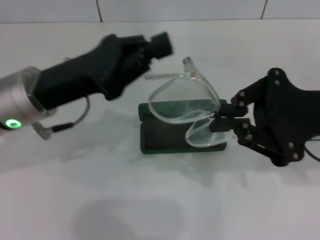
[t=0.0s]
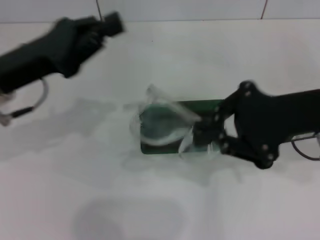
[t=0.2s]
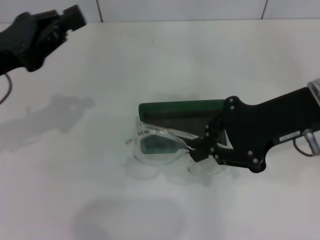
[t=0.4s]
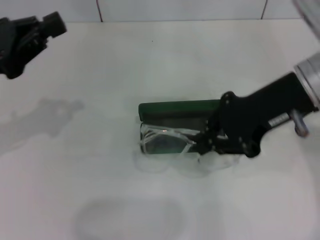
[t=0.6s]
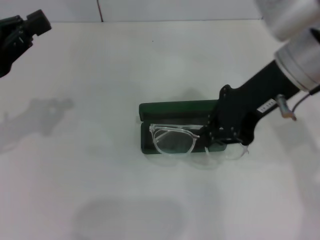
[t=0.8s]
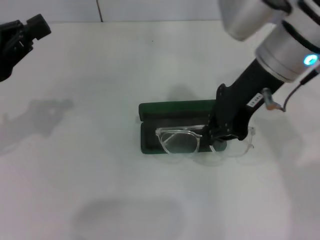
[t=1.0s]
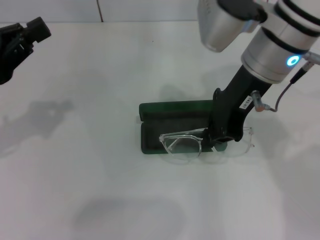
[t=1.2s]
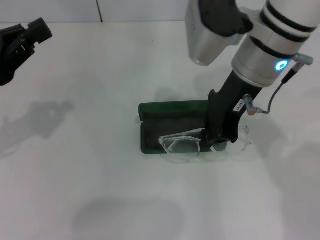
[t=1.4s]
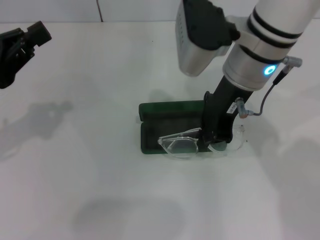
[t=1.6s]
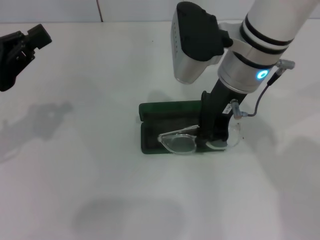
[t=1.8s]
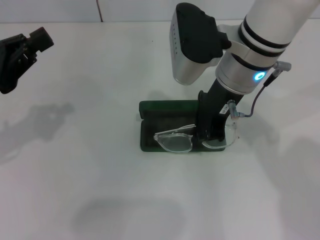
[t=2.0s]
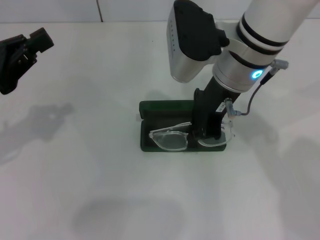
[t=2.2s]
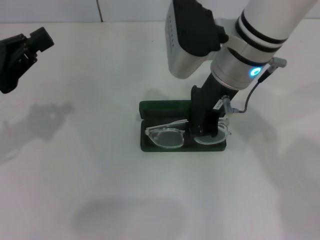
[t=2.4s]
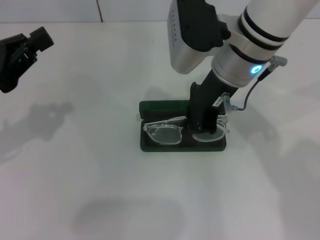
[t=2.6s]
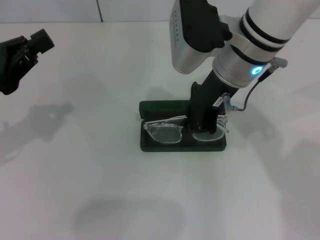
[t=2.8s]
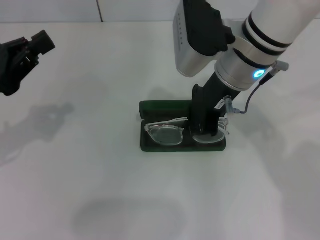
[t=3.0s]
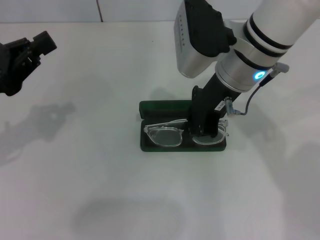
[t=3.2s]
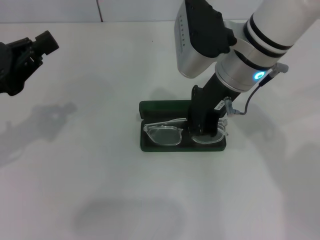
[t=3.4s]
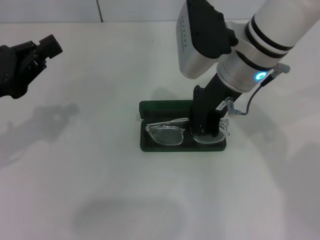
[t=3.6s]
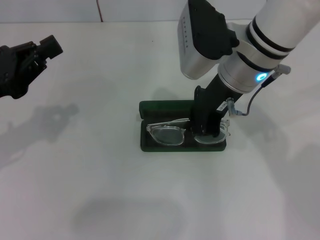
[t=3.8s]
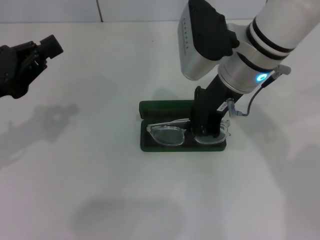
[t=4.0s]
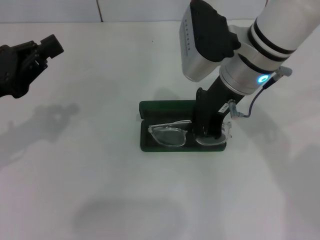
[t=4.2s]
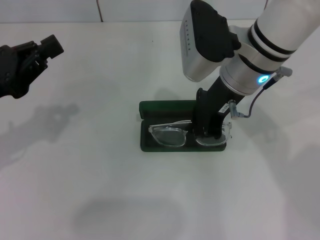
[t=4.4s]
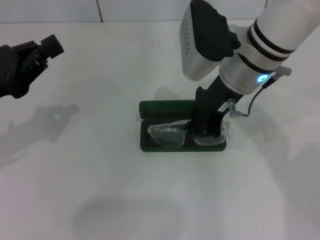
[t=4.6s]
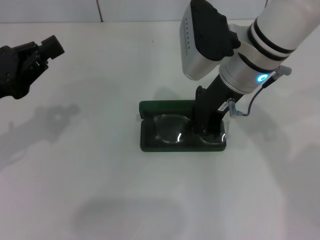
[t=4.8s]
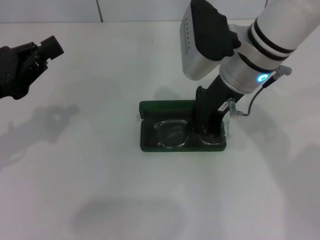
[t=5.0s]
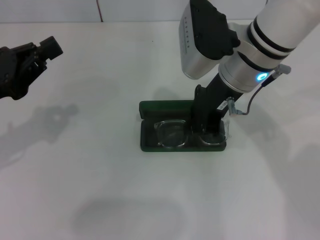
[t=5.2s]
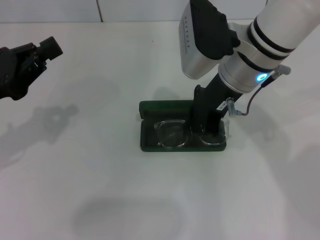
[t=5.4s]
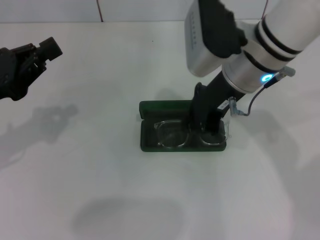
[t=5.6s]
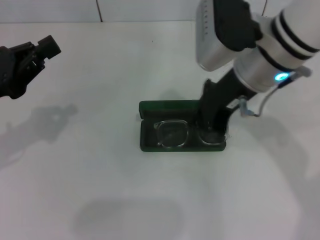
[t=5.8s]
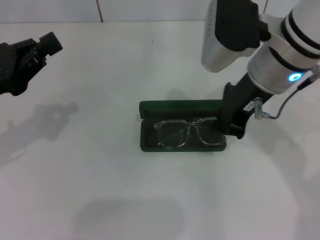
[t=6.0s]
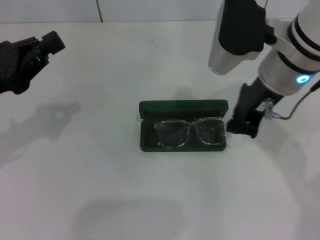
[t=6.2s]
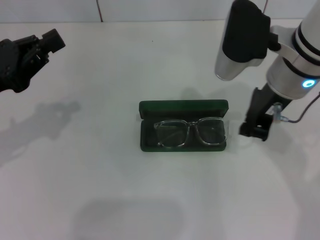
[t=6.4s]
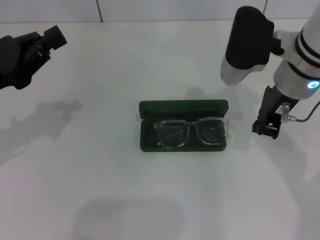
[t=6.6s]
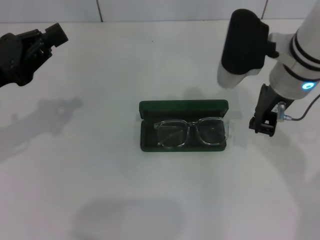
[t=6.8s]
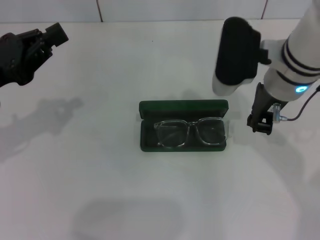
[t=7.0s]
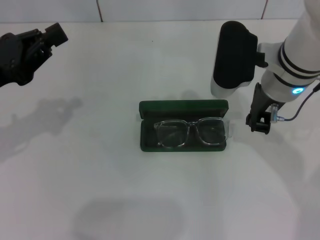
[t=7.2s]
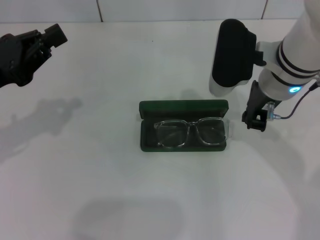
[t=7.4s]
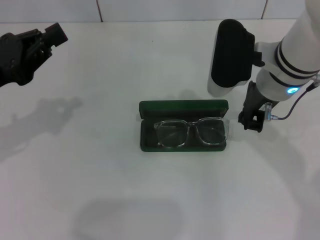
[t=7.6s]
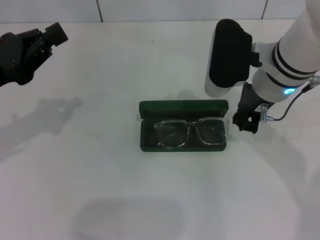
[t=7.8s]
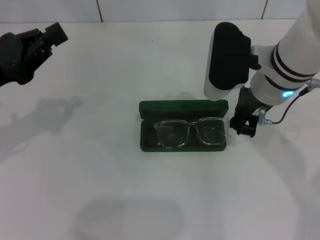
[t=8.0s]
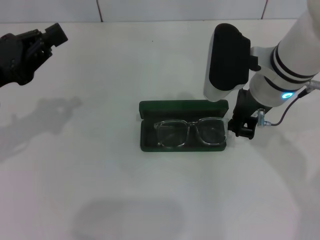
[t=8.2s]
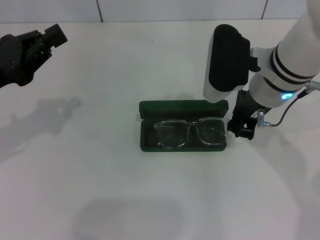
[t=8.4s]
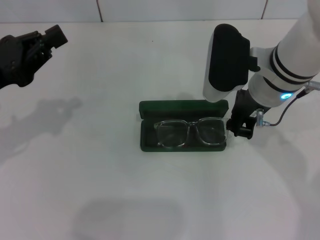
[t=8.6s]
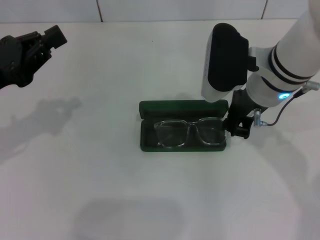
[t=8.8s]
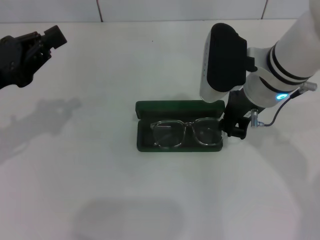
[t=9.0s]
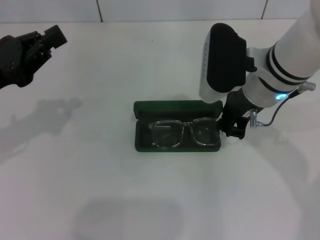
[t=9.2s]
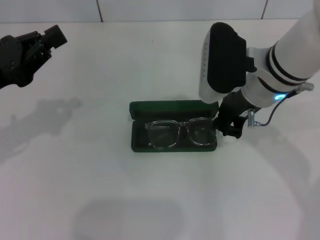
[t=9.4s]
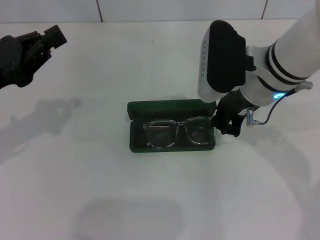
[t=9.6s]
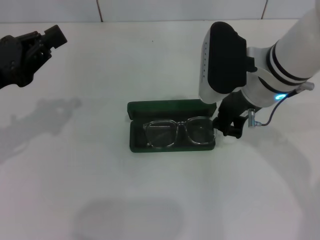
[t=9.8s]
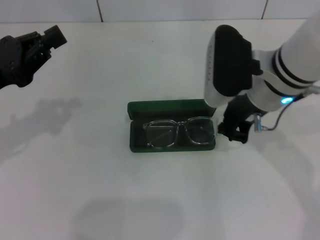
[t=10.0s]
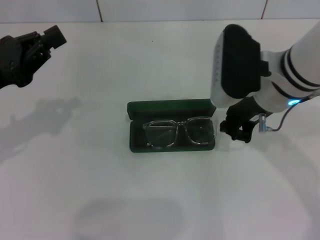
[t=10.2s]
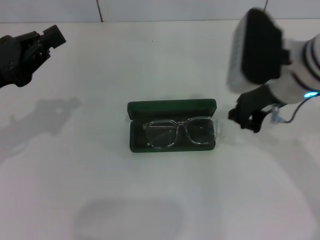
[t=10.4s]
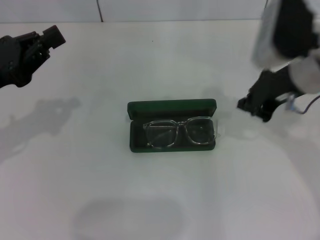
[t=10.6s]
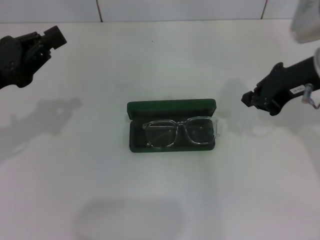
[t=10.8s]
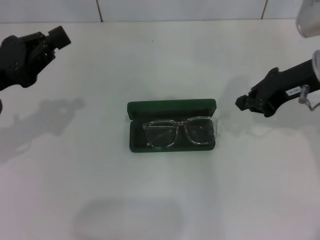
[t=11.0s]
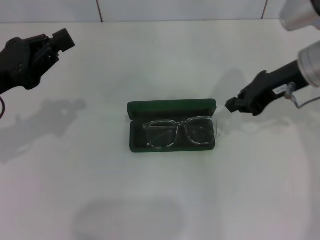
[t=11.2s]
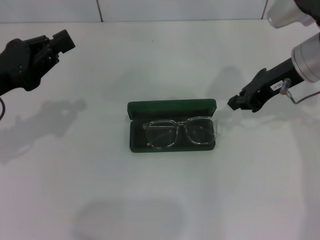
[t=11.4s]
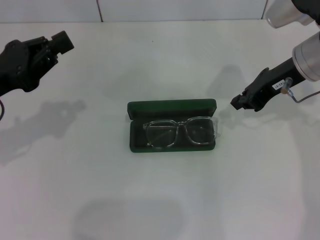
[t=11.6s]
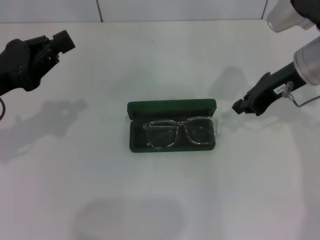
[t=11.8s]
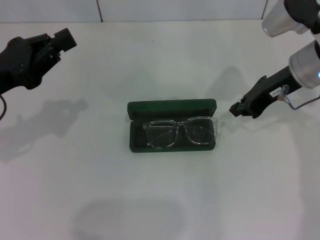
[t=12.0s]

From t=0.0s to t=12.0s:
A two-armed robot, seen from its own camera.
Step, from t=0.0s to t=5.0s: Put the glasses into the case with your right hand.
From t=0.0s to t=1.6s: The left gripper heads to the left, covering about 10 cm; the right gripper is displaced to the left and forward by approximately 15 cm.
From t=1.6s to t=3.0s: The grippers make only small movements.
From t=3.0s to t=4.4s: Neither gripper changes place.
From t=4.4s to t=6.0s: The grippers move only a little.
From t=6.0s to t=7.6s: The right gripper travels downward by approximately 5 cm.
From t=7.6s to t=10.4s: There are only small adjustments of the grippers.
From t=10.4s to t=12.0s: The right gripper moves approximately 5 cm.

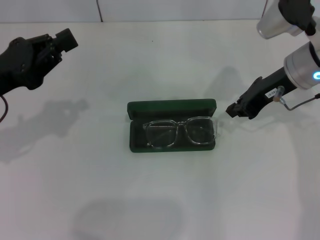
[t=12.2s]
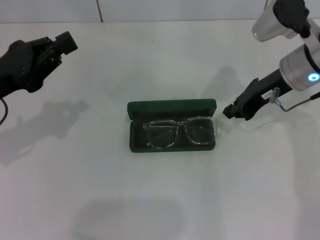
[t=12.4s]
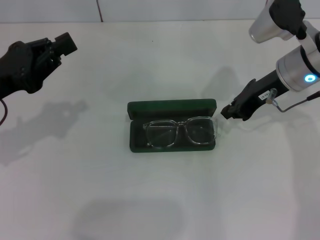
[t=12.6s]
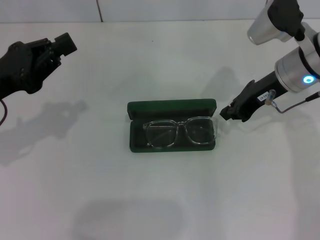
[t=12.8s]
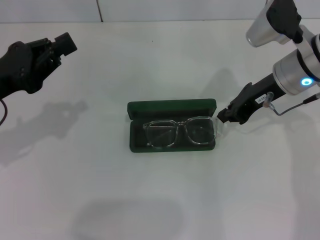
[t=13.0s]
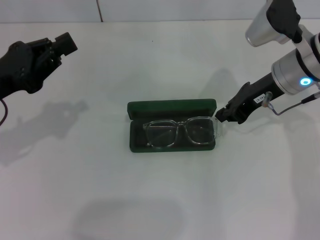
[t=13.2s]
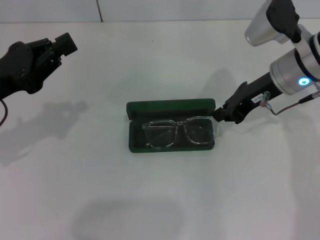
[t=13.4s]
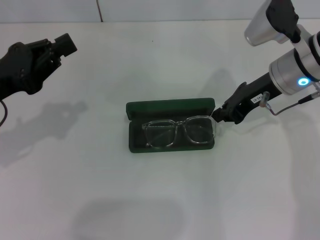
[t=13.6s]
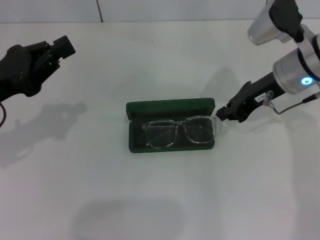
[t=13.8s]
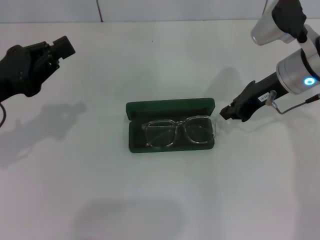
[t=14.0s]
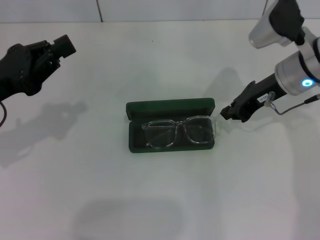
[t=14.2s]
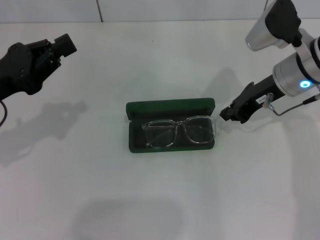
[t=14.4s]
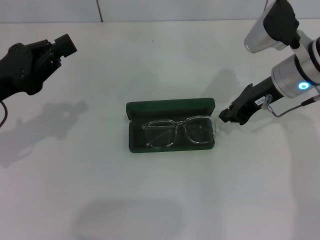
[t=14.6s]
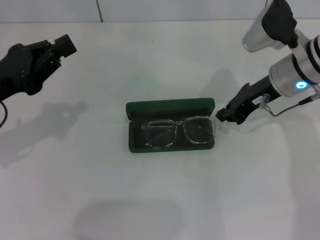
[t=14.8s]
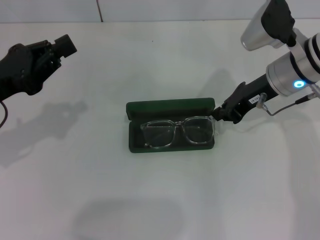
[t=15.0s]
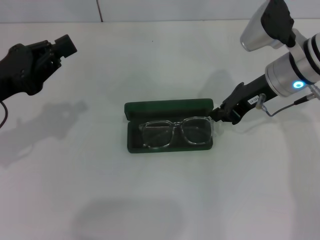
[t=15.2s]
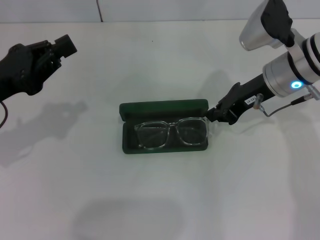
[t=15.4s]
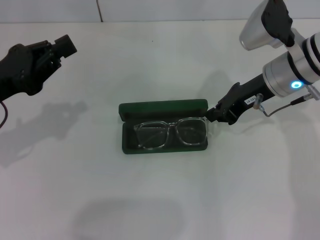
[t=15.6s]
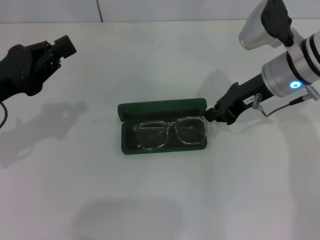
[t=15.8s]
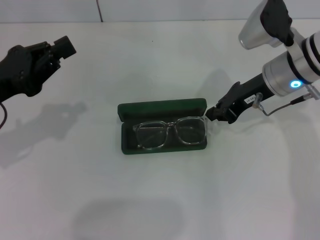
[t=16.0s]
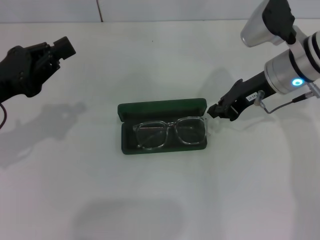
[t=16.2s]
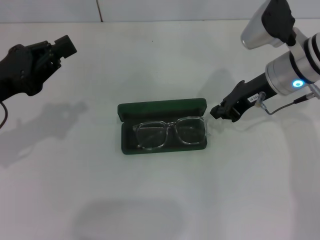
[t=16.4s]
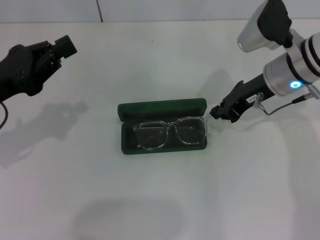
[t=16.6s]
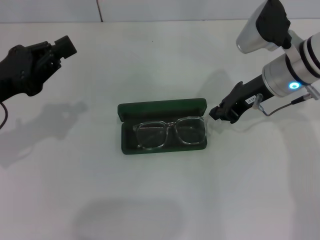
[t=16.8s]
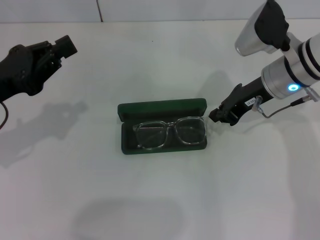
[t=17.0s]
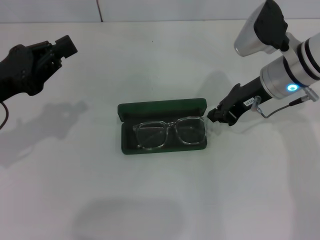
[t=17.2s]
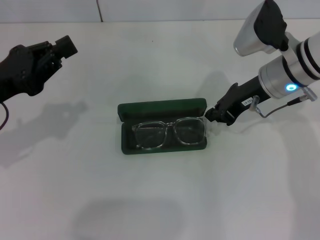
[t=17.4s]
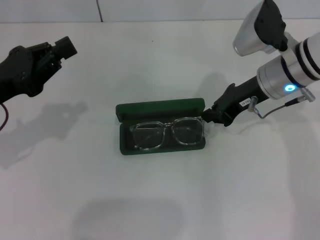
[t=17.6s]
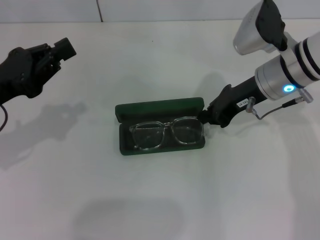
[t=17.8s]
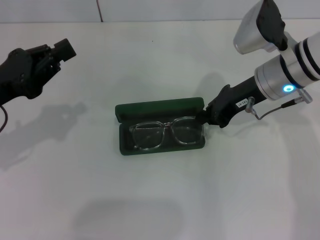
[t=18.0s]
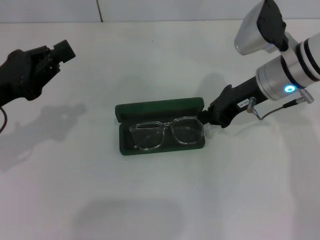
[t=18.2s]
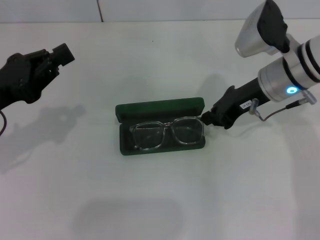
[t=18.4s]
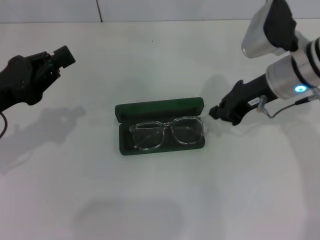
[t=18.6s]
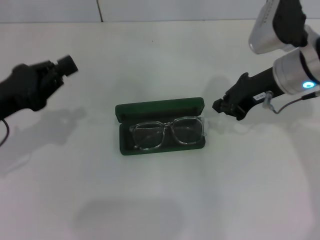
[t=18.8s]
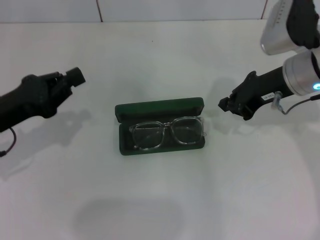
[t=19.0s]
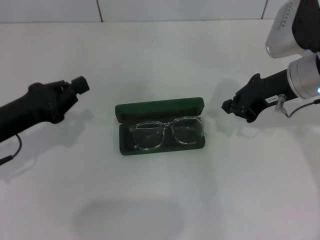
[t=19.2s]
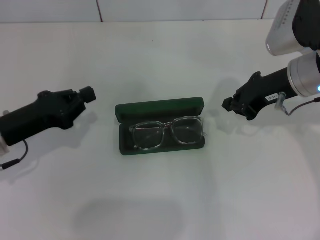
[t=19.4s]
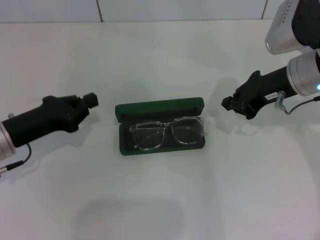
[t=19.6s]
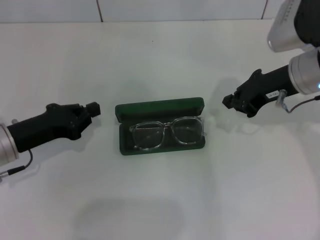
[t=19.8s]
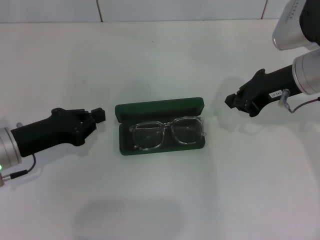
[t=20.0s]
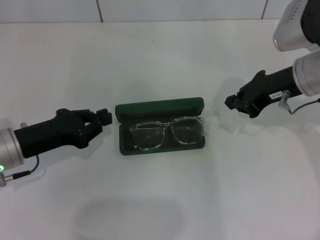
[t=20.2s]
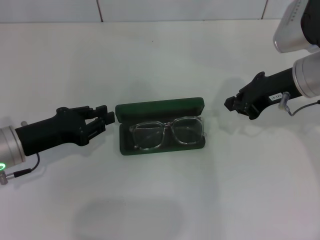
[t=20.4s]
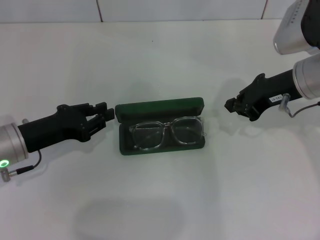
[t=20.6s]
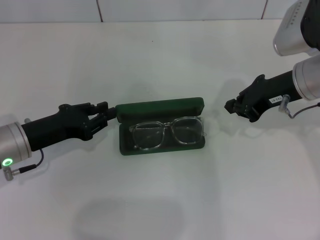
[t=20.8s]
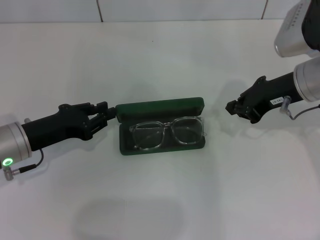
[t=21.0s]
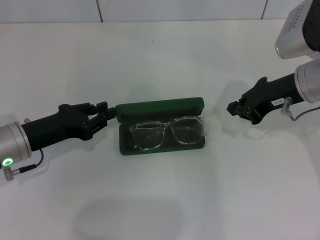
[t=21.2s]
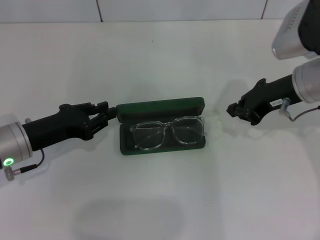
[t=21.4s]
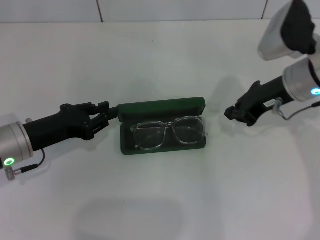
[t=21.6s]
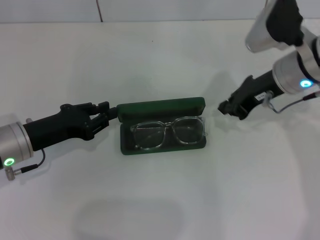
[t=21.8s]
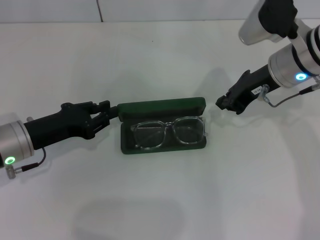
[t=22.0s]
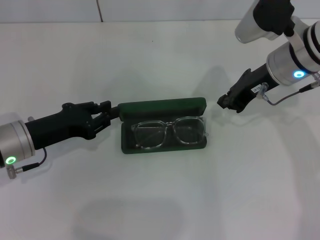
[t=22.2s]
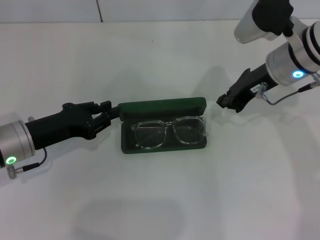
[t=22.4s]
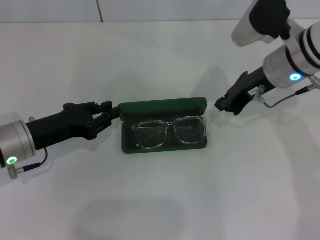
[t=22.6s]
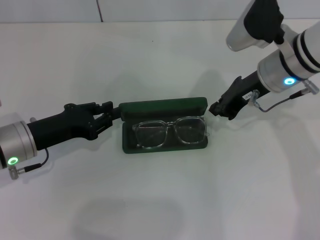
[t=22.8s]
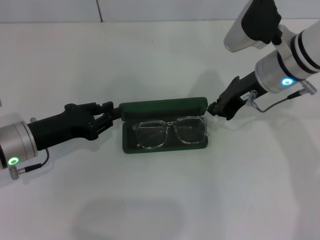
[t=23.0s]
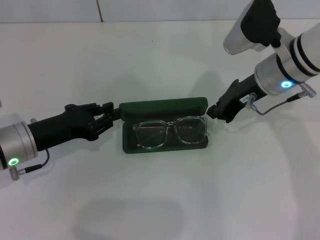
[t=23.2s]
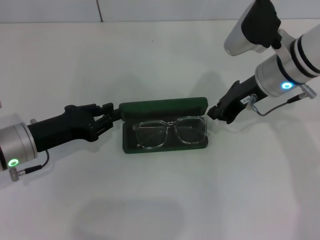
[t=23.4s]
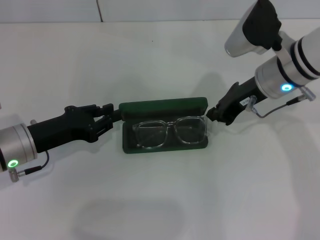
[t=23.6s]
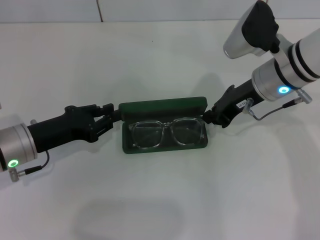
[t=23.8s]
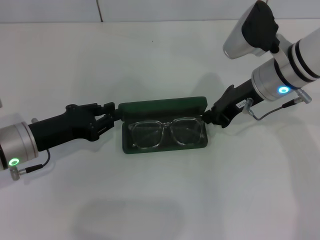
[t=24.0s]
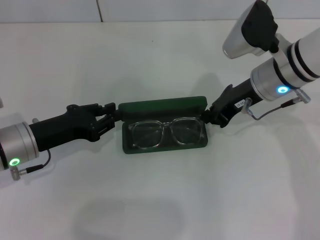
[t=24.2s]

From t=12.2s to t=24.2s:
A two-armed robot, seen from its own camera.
From t=12.2s to t=13.8s: The grippers stay close to where they were, moving slightly.
From t=13.8s to t=15.2s: Both grippers stay put.
From t=15.2s to t=16.6s: The two grippers keep their place.
From t=16.6s to t=18.2s: There are only small adjustments of the grippers.
From t=18.2s to t=19.8s: The right gripper moves roughly 5 cm, while the left gripper is displaced downward by some 5 cm.
From t=19.8s to t=21.2s: The left gripper opens up.
From t=21.2s to t=22.6s: The right gripper ends up about 5 cm from where it was.
From t=22.6s to t=24.2s: The grippers stay close to where they were, moving slightly.
